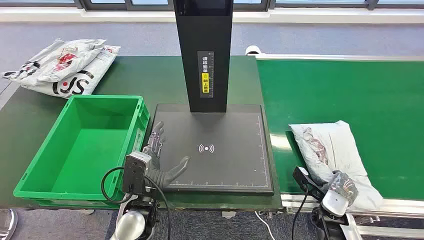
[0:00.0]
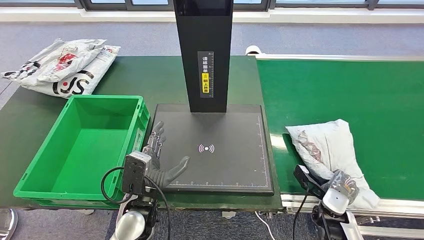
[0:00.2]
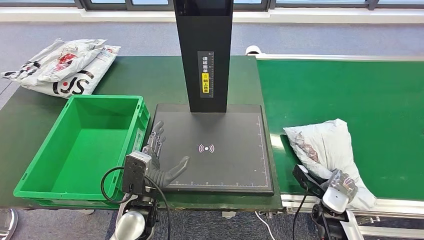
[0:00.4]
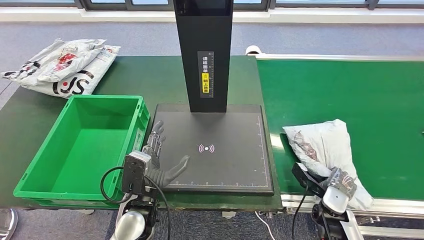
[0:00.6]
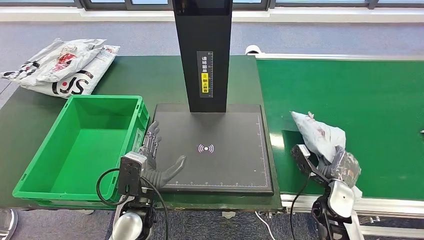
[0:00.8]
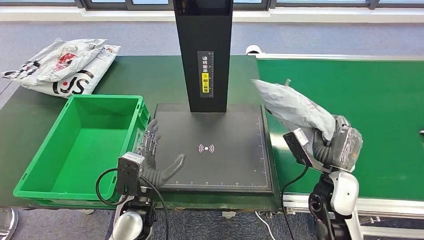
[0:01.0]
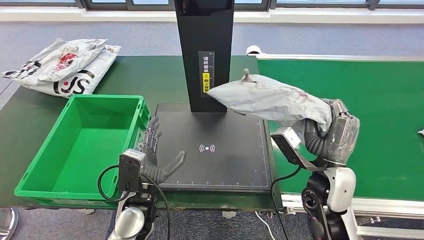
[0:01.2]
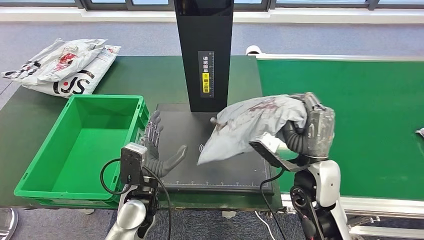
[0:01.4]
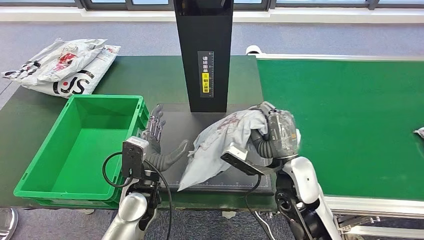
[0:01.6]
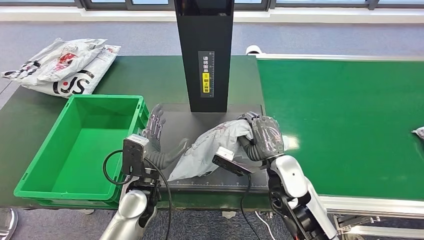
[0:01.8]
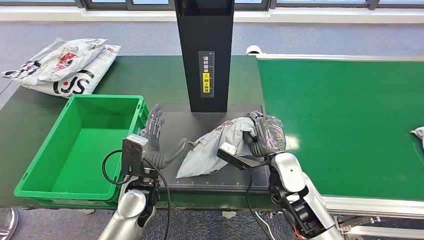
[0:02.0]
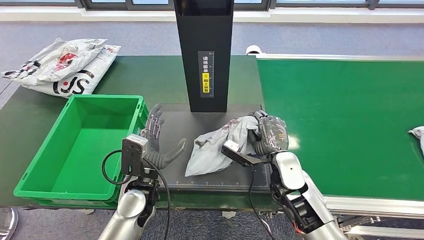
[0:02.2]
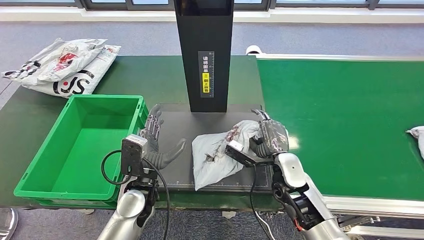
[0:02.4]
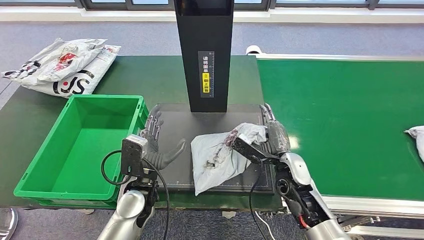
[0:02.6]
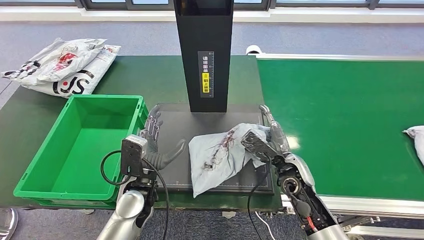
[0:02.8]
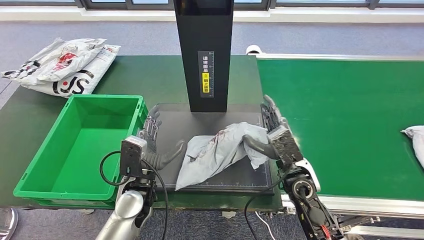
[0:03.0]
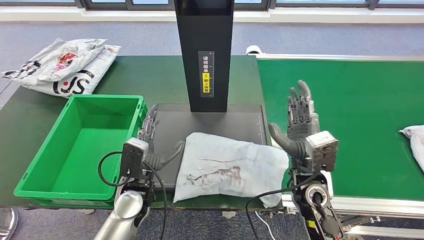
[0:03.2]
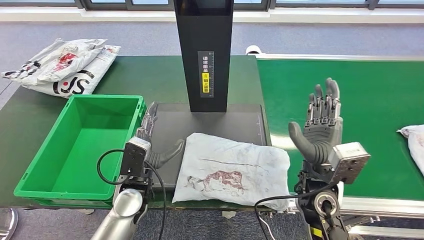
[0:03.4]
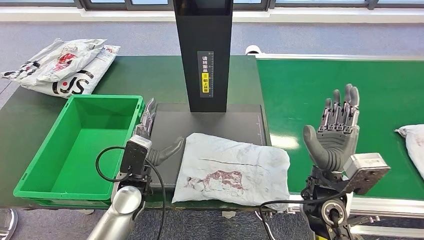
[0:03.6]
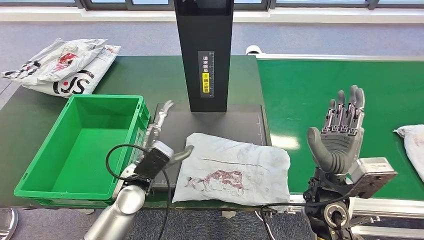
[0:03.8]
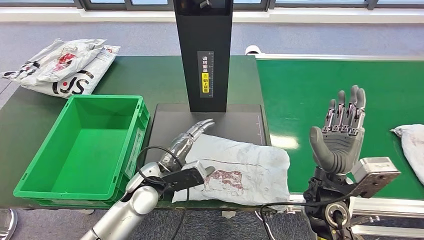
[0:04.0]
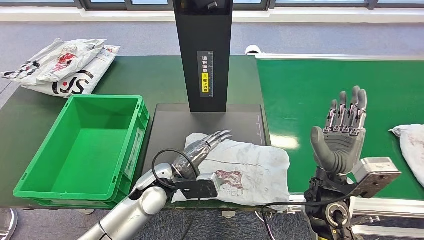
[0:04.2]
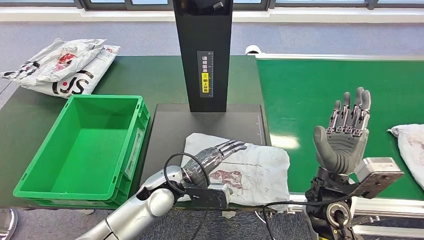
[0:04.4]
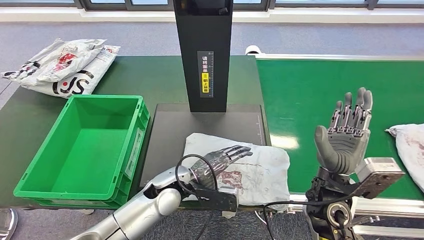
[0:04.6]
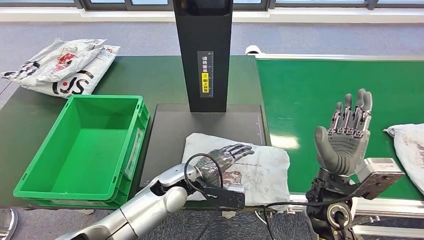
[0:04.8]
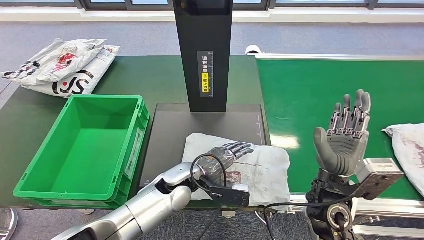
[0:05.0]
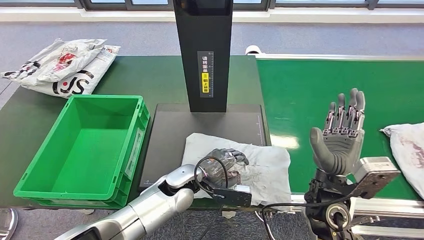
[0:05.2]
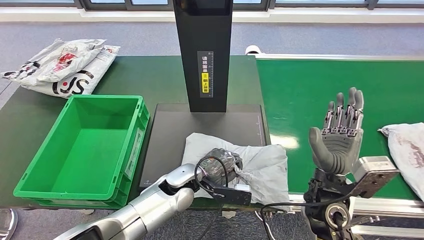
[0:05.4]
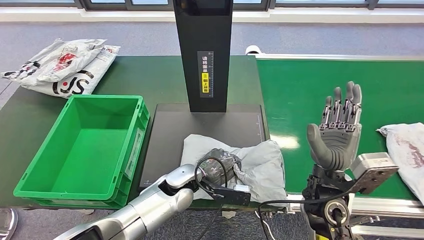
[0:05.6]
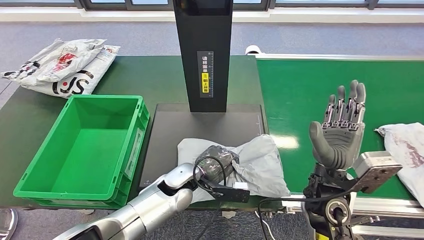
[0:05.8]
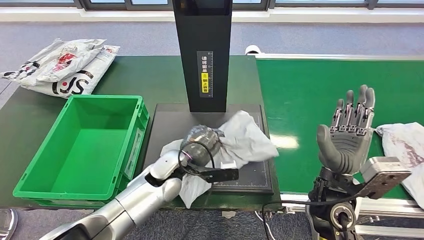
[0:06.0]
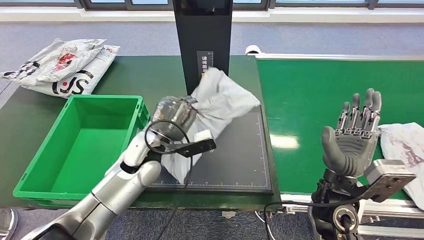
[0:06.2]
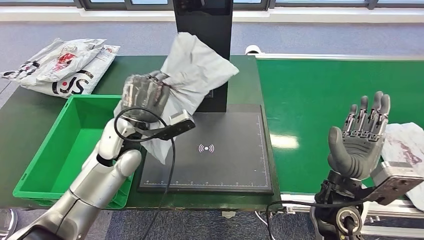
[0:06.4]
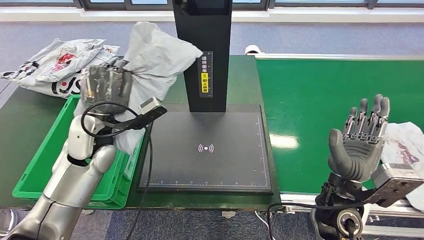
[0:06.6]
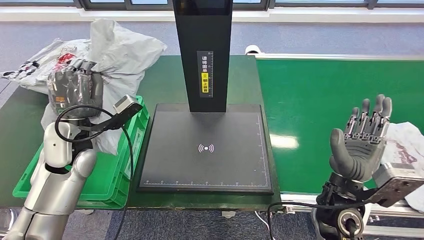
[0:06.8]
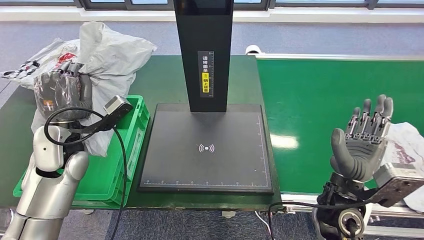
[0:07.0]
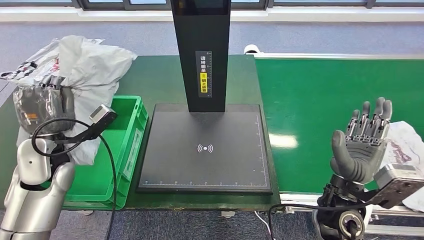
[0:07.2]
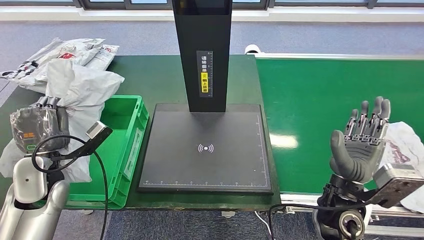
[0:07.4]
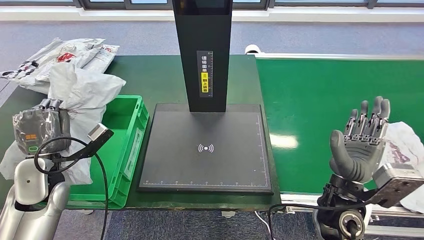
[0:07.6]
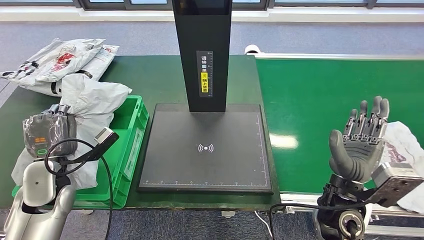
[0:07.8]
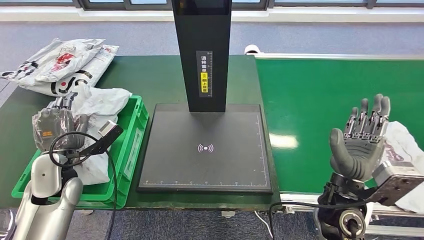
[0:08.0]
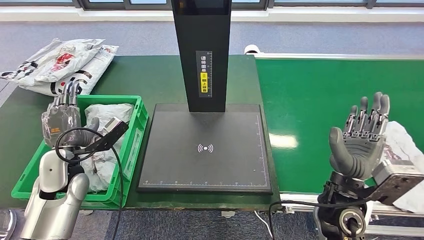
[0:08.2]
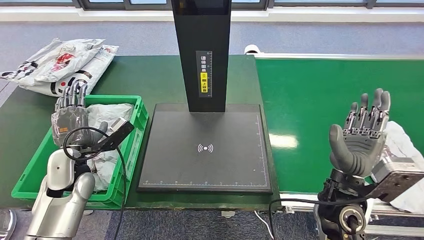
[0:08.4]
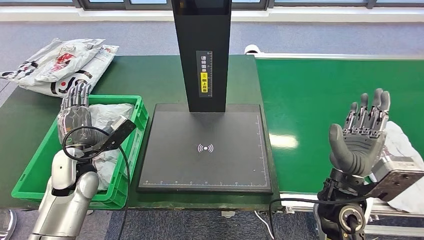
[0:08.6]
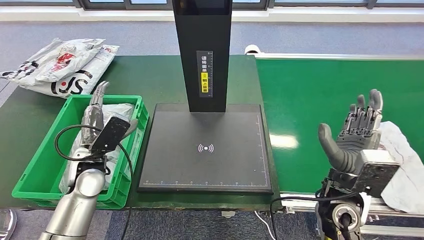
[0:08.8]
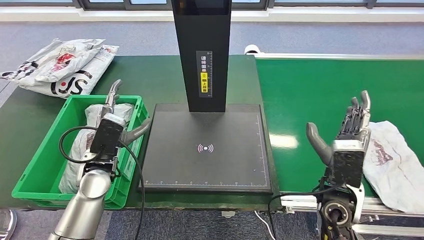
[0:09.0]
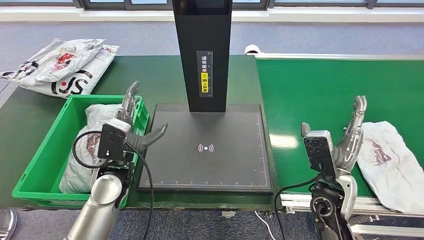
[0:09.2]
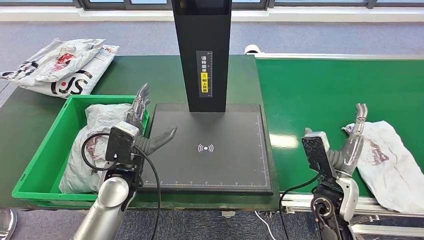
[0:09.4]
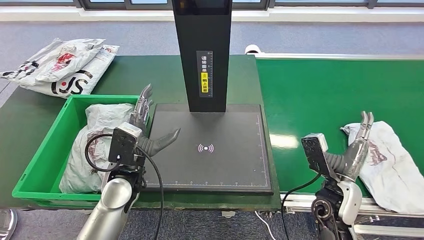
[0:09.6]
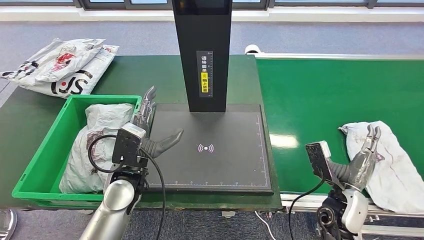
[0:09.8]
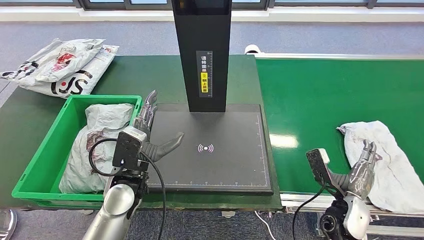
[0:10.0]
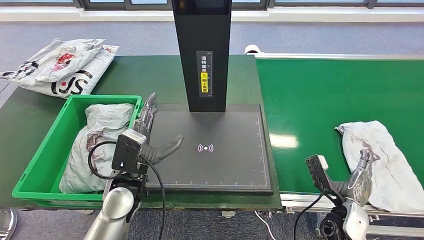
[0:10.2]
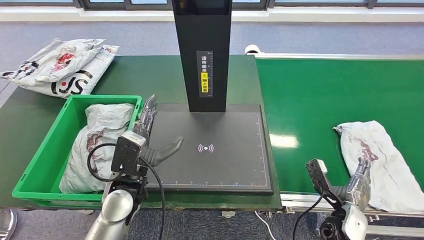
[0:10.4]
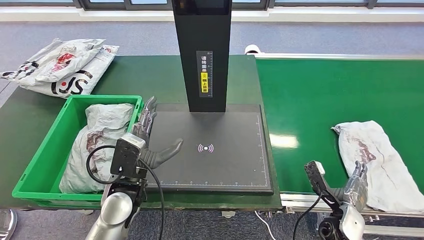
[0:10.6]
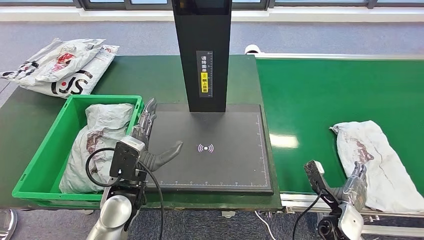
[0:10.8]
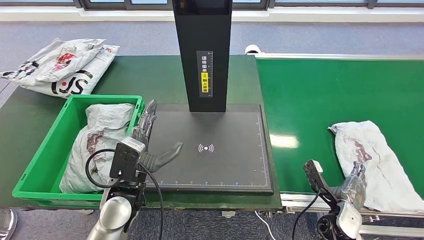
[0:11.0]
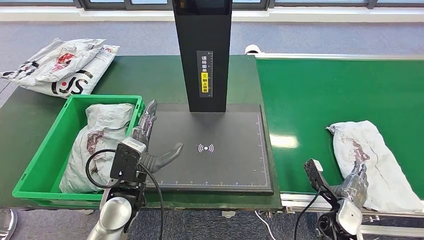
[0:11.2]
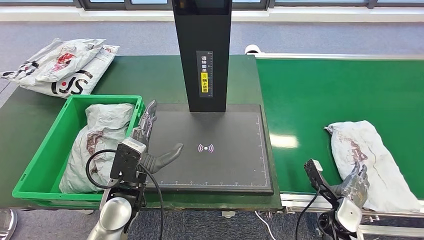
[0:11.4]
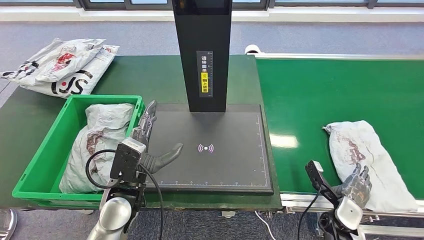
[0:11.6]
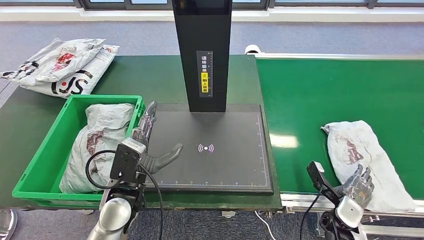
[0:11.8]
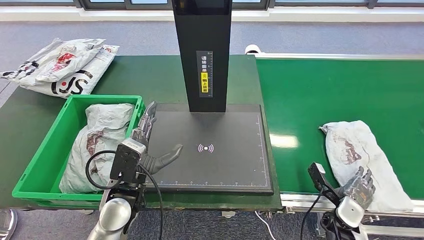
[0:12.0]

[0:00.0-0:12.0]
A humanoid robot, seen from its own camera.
Step, 0:00.0 to 0:01.2: Take the parcel off the conveyor belt.
Step, 0:01.4 to 0:03.8: Place the parcel onto the inbound machine.
Step, 0:04.0 to 0:07.2: Pick up the parcel from the inbound machine.
Step, 0:07.4 to 0:10.0: Put the parcel inside the courier box.
0:01.6 to 0:03.0: The right hand moves downward, some 5 cm.
0:09.0 to 0:10.4: The left hand moves to the right, roughly 10 cm. The right hand heads downward and to the right, covering some 15 cm.
0:10.4 to 0:12.0: The right hand ends up approximately 5 cm from where it was.

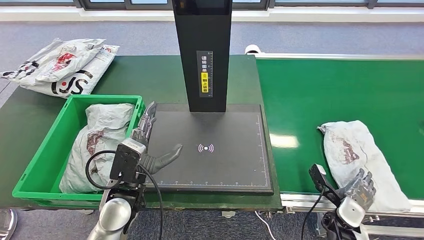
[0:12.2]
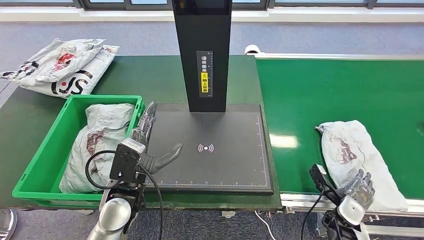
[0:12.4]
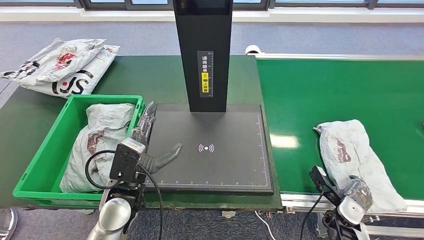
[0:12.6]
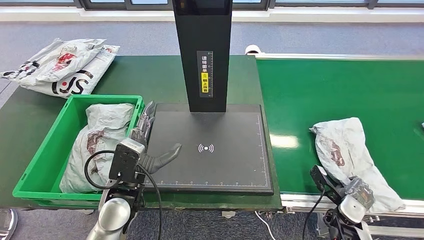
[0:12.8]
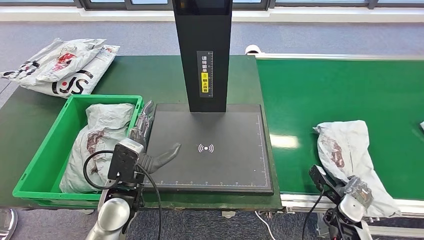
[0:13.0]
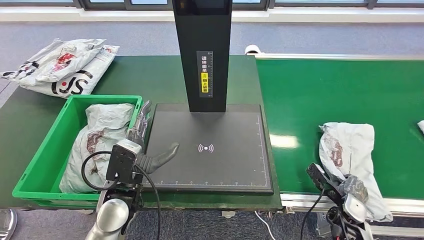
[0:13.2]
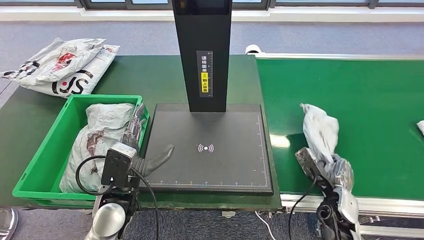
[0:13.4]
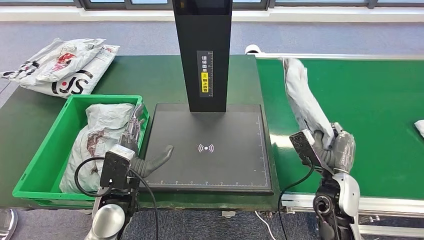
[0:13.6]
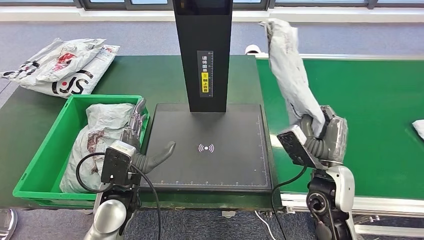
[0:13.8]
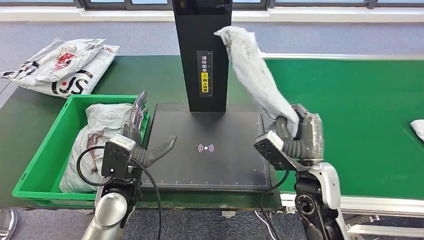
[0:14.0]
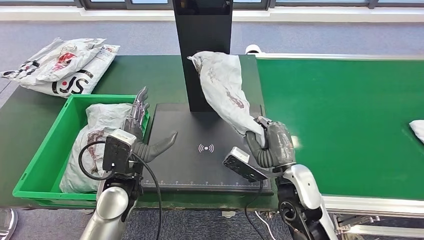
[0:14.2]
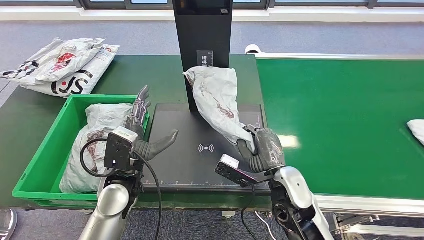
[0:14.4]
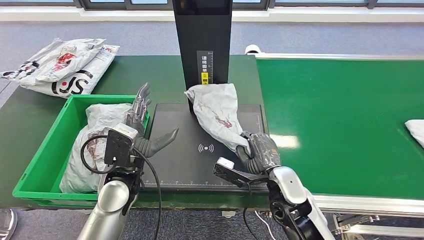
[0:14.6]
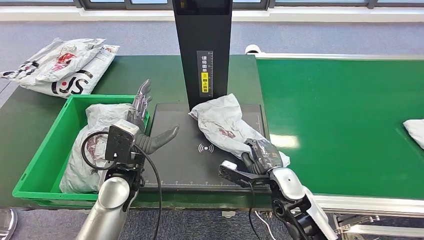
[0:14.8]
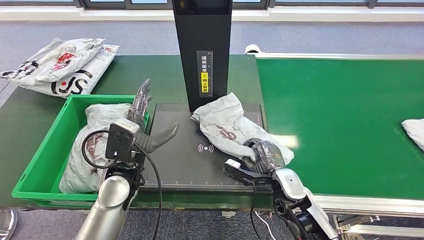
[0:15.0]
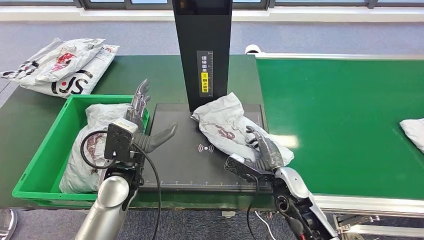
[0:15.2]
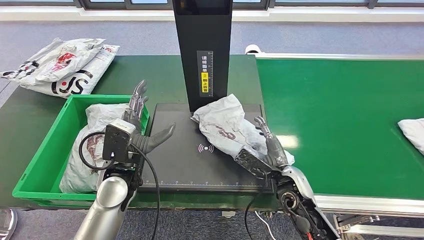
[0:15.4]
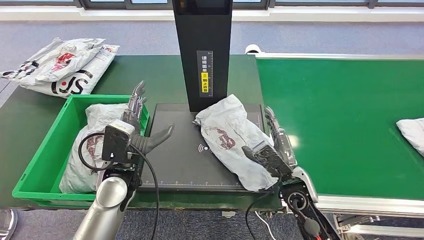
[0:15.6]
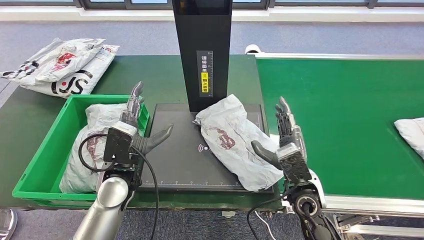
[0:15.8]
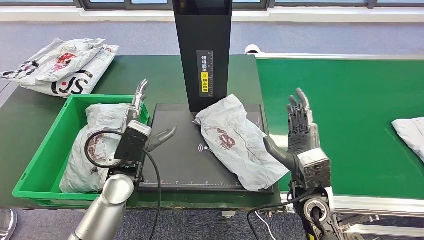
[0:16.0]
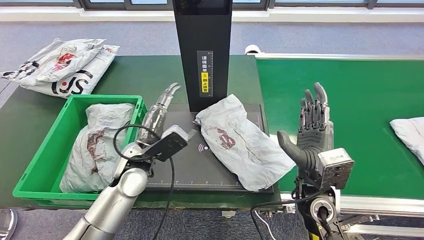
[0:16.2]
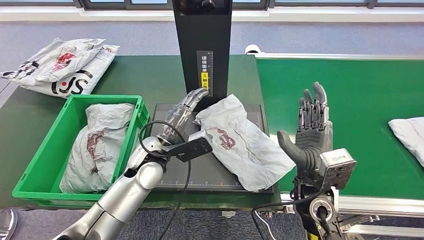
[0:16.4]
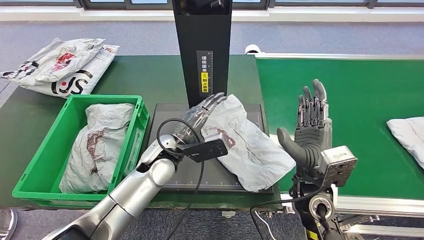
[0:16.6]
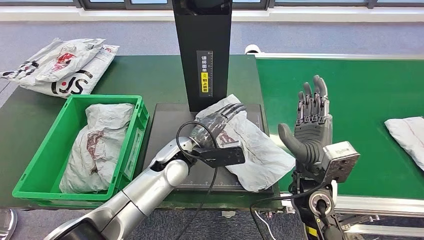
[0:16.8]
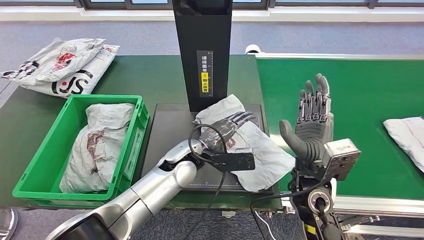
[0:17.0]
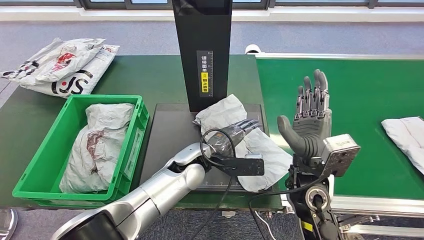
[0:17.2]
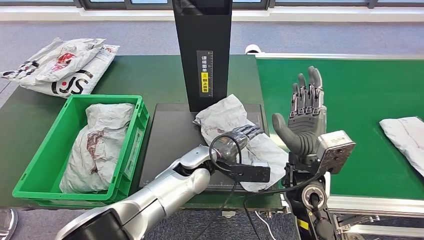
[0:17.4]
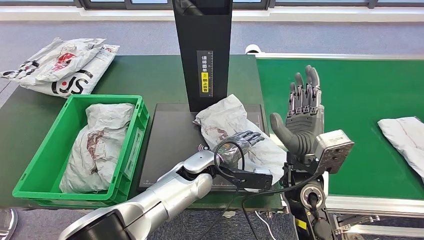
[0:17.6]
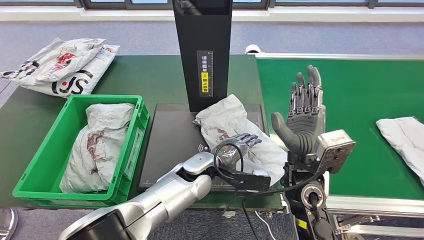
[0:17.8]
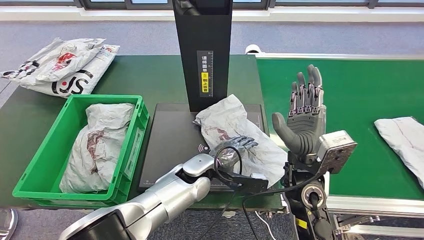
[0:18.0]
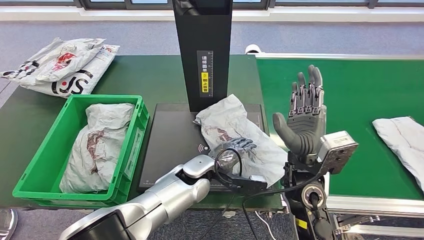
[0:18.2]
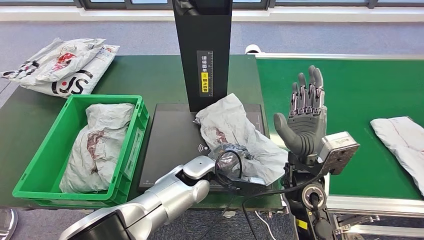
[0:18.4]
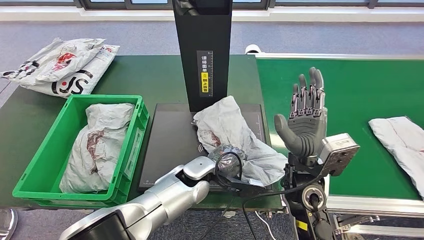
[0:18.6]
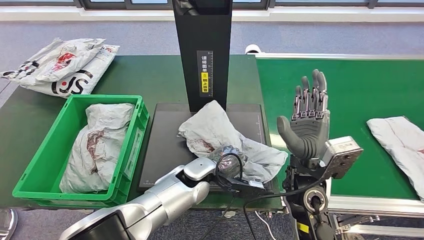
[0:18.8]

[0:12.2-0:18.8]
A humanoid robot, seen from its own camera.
Step, 0:14.4 to 0:16.8: Place the parcel onto the inbound machine.
0:12.2 to 0:13.8: The right hand heads upward and to the left, covering some 20 cm.
0:15.4 to 0:17.2: The left hand shifts some 15 cm to the right. Meanwhile the right hand is displaced upward by about 10 cm.
